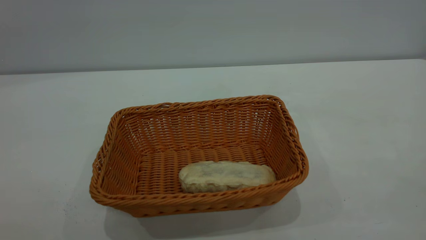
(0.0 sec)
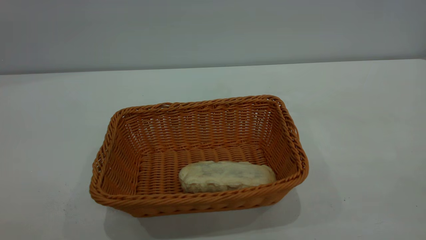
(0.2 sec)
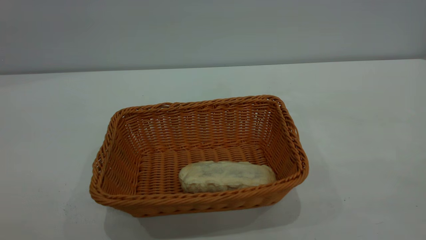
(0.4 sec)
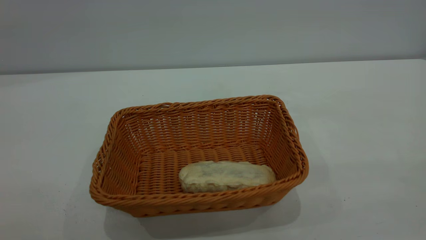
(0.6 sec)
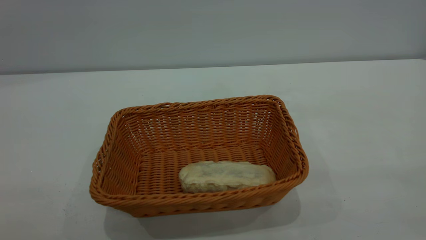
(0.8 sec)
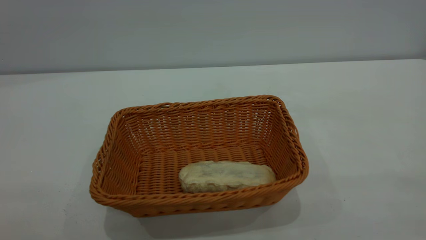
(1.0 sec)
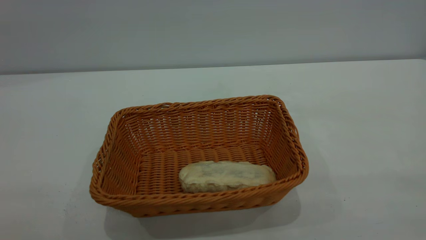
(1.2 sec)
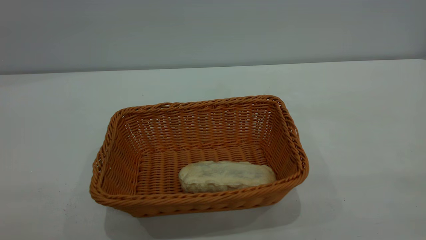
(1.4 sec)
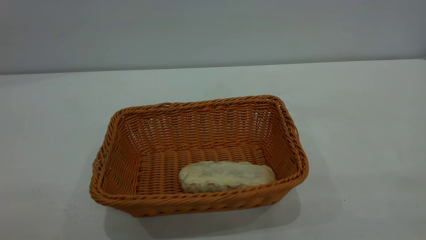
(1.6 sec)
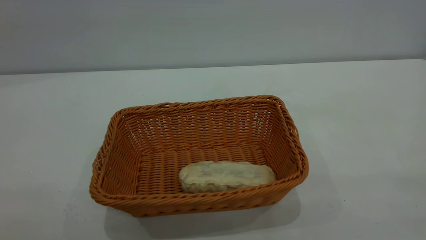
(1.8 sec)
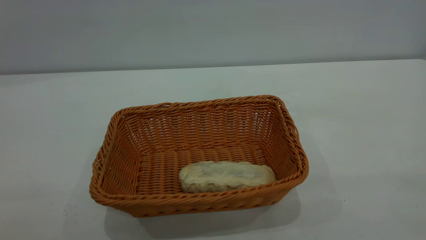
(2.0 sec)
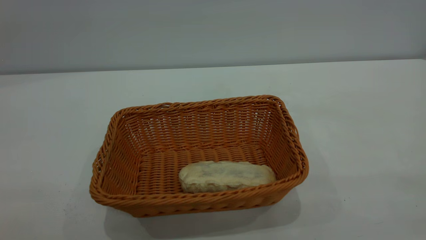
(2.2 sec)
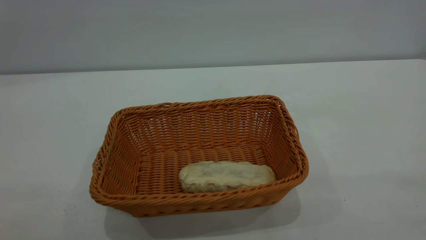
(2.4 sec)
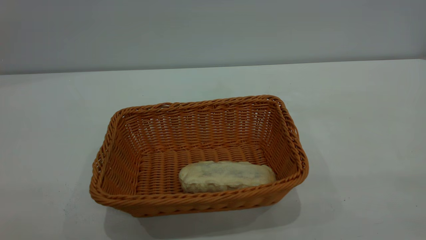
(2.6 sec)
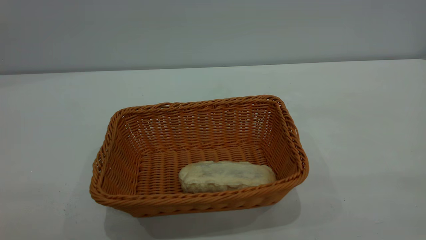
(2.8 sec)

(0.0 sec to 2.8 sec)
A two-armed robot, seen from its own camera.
Task of the whole recording: One hand grasps the yellow basket and places it in the middle of the table, while the other hand picks up the long bread and puts it into the yellow basket.
1.4 sec - 2.8 sec: Both grippers stay put.
